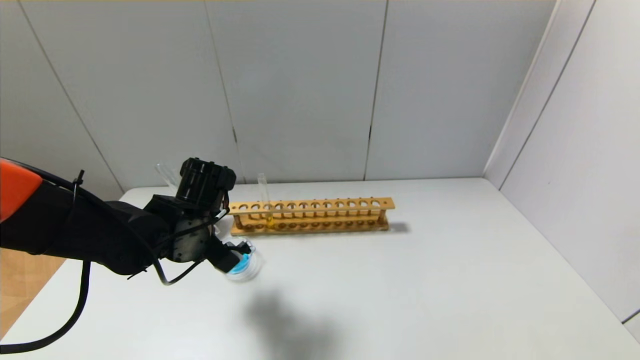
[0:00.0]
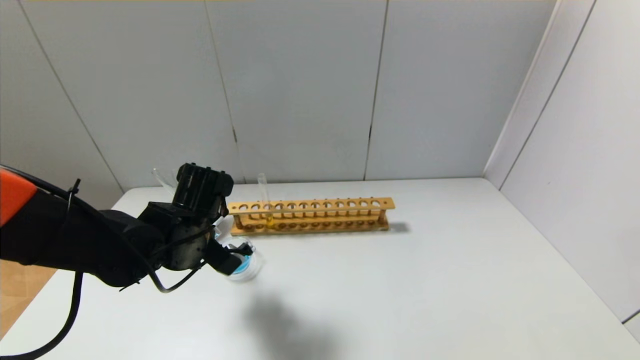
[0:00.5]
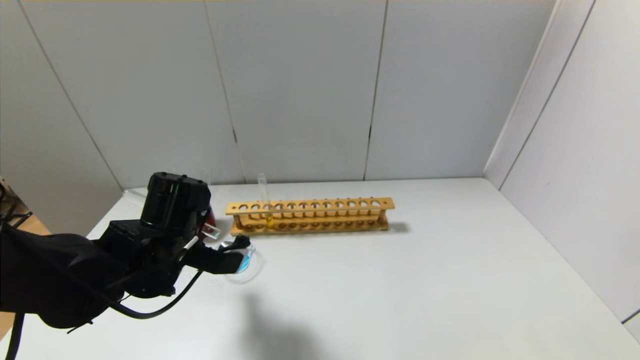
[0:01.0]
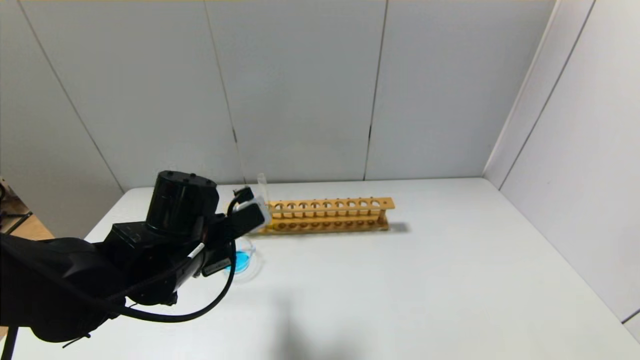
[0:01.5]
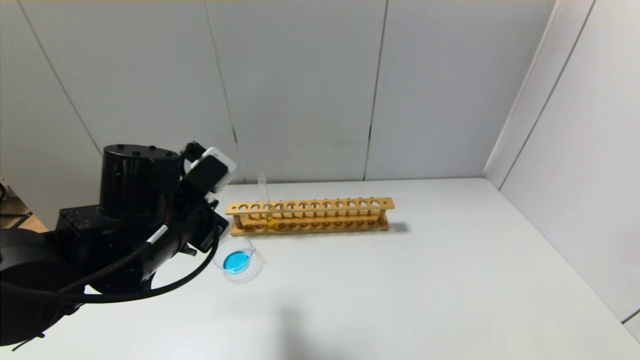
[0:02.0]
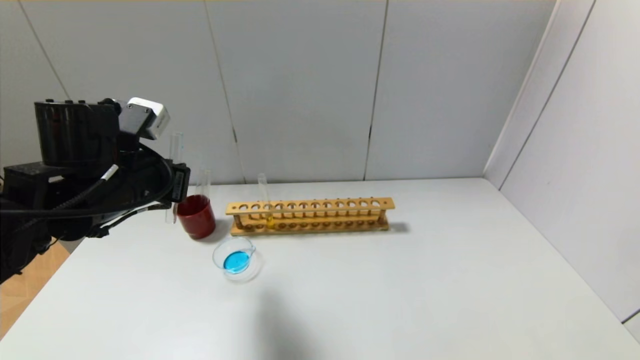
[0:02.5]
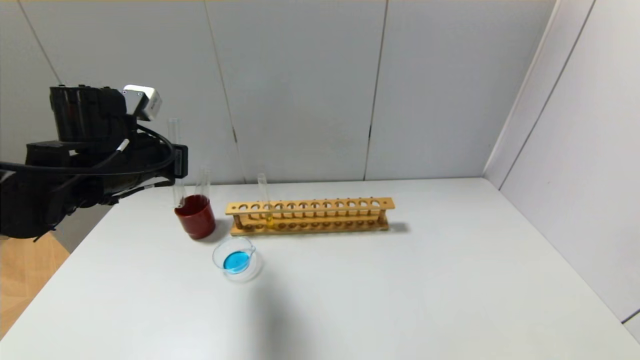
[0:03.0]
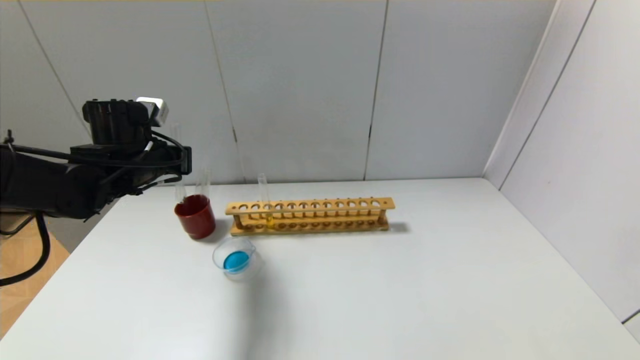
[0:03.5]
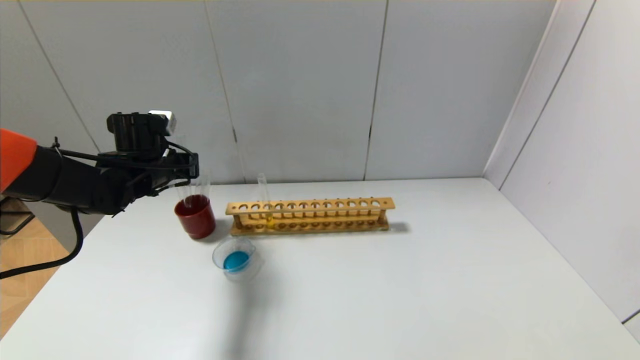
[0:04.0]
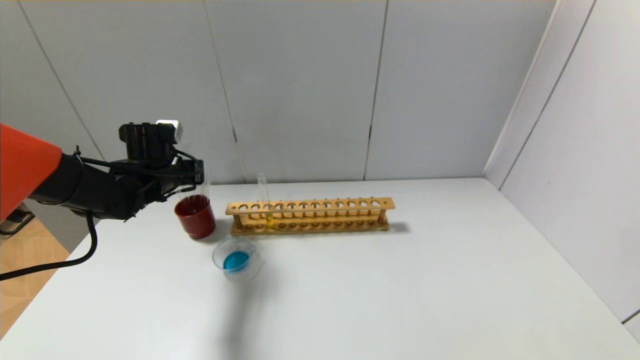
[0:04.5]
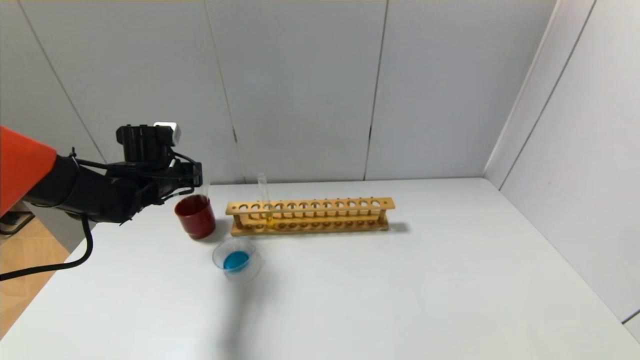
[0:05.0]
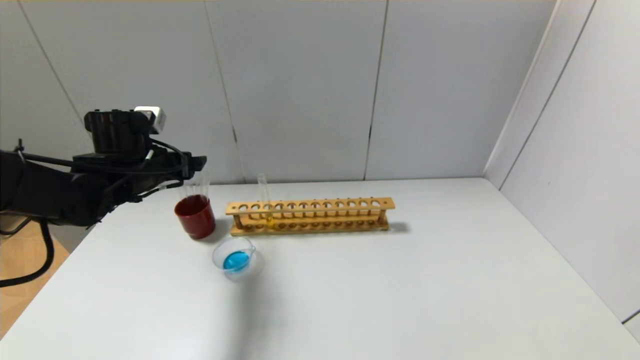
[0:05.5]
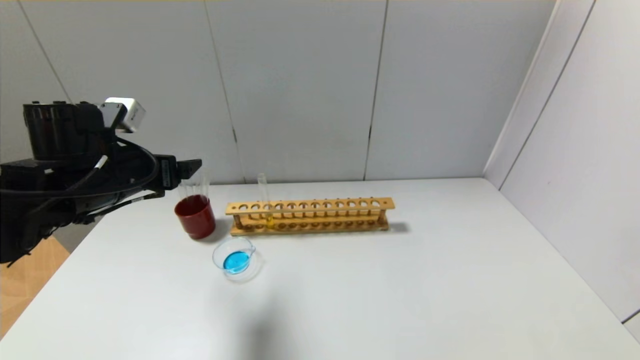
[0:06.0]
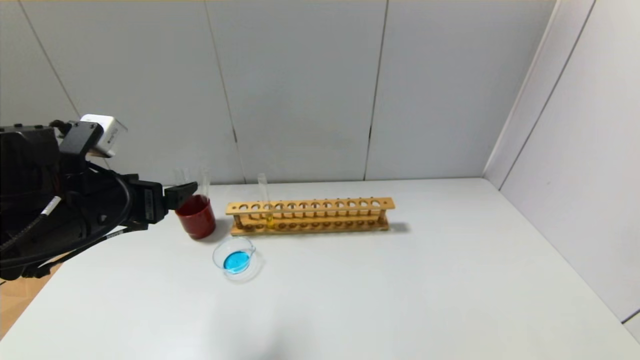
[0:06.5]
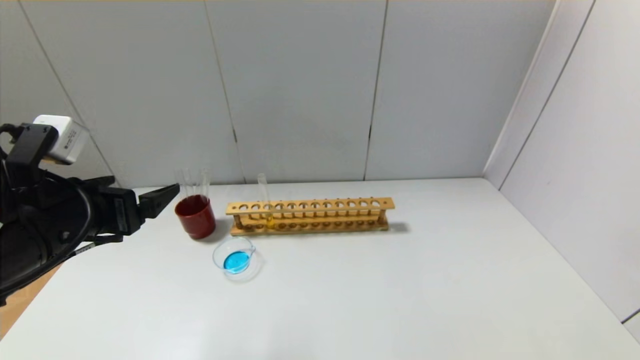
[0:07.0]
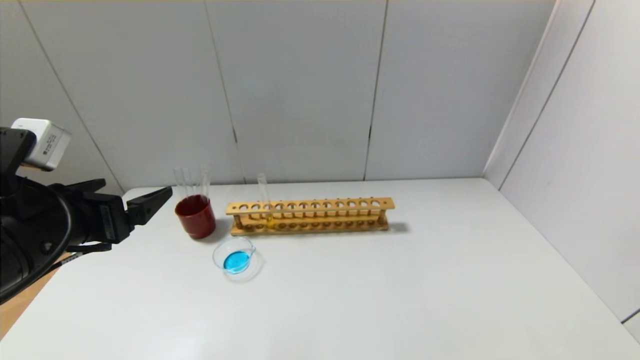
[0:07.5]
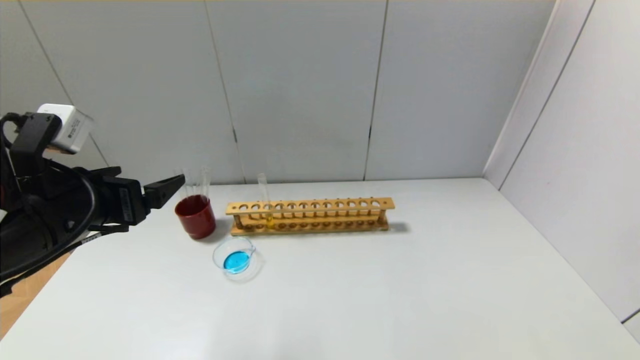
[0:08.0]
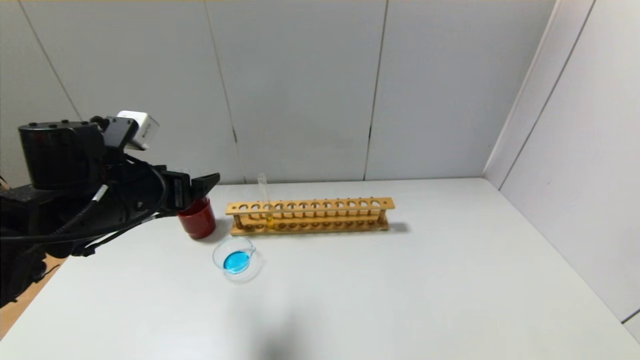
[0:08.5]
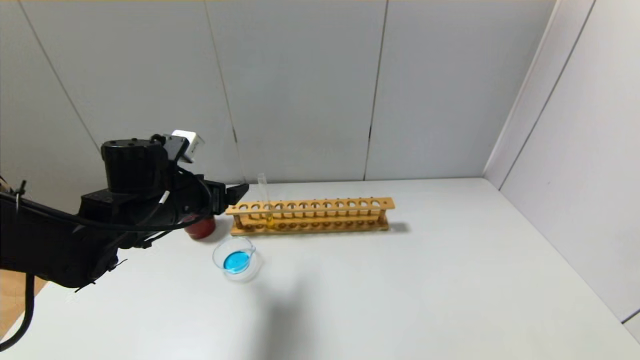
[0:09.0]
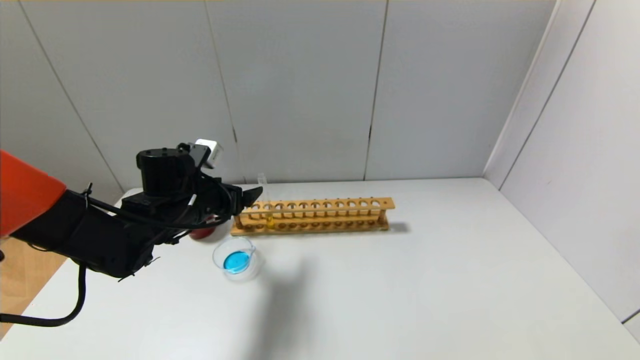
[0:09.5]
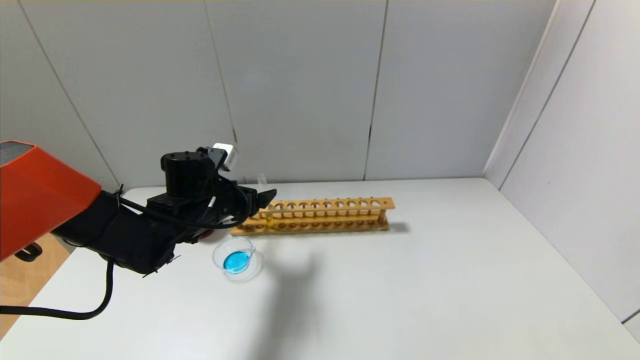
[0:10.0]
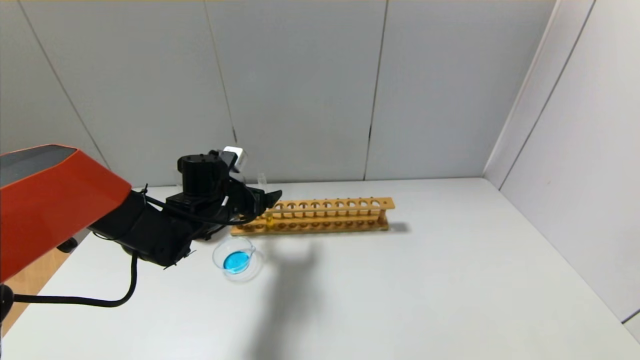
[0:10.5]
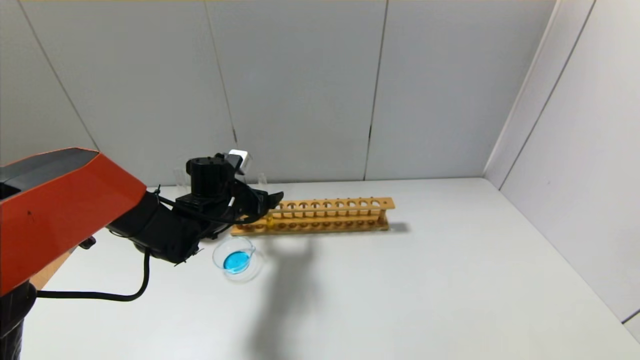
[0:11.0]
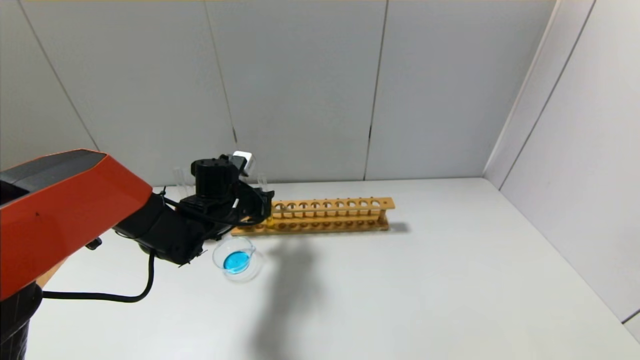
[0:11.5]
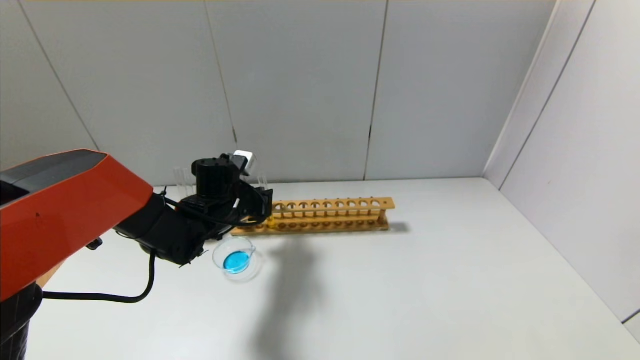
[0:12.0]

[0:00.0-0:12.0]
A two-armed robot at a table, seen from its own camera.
Step, 2.0 to 5.0 s: Place the test tube into the brown cup with the left gripper.
Step, 5.5 to 12.0 s: Grasp the yellow reagent with the left gripper.
0.0 to 2.0 s: The left gripper is displaced backward and upward by roughly 10 cm.
2.0 to 4.0 s: The left gripper travels forward and to the left by about 20 cm.
4.0 to 6.0 s: The left gripper shifts some 10 cm backward, and opens up.
6.0 to 8.0 s: The left gripper moves backward, roughly 10 cm.
8.0 to 10.0 s: The left gripper moves forward, downward and to the right, approximately 20 cm.
10.0 to 12.0 s: The left gripper closes up.

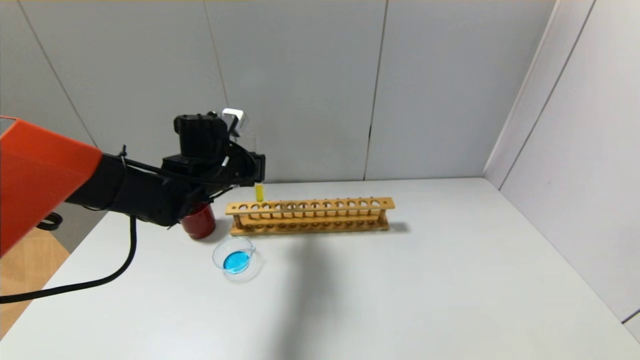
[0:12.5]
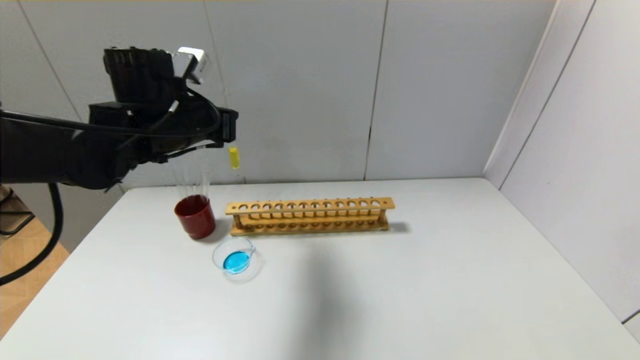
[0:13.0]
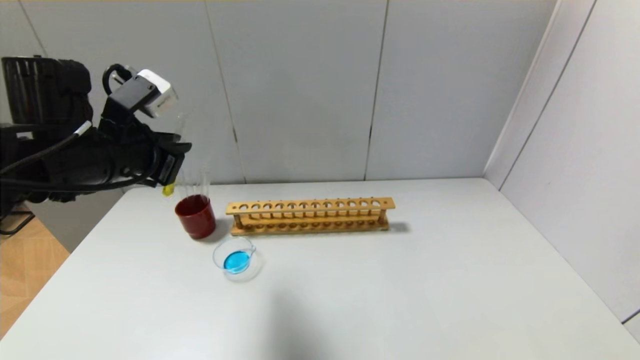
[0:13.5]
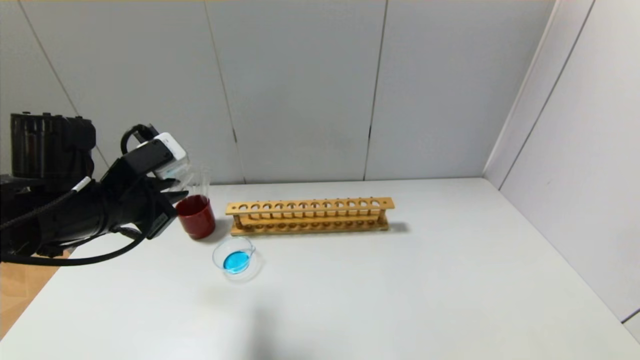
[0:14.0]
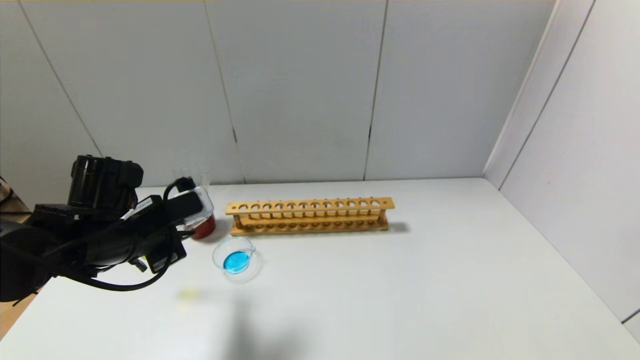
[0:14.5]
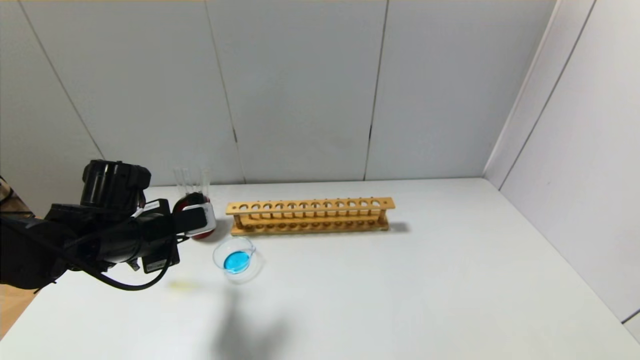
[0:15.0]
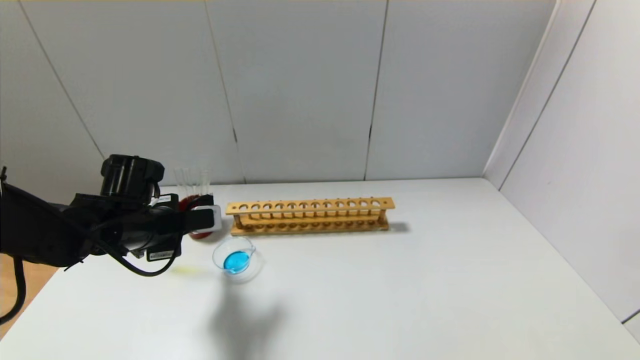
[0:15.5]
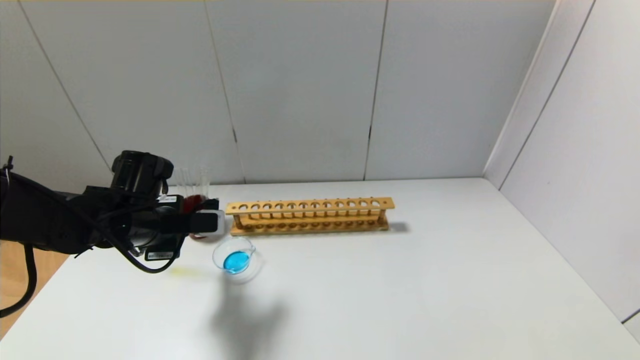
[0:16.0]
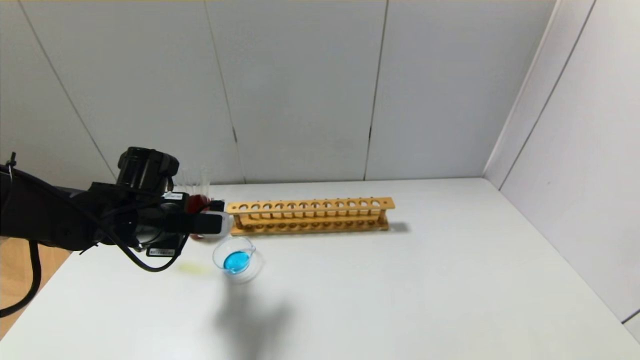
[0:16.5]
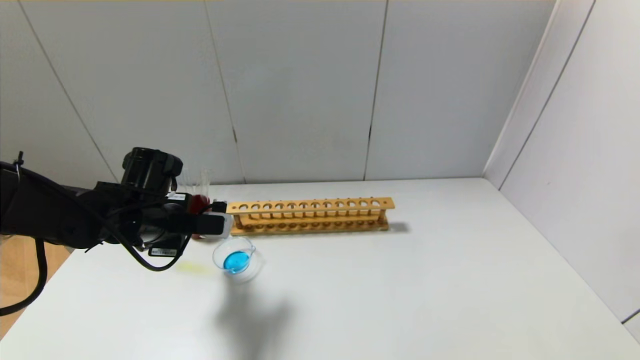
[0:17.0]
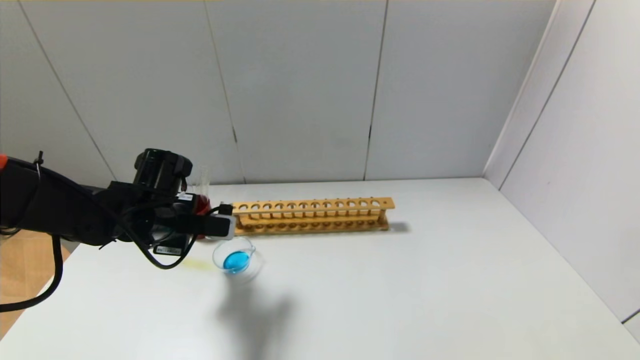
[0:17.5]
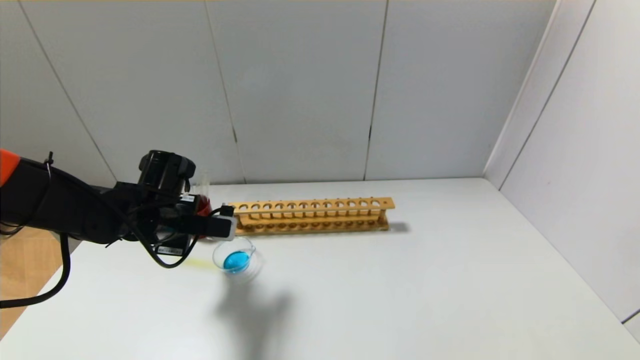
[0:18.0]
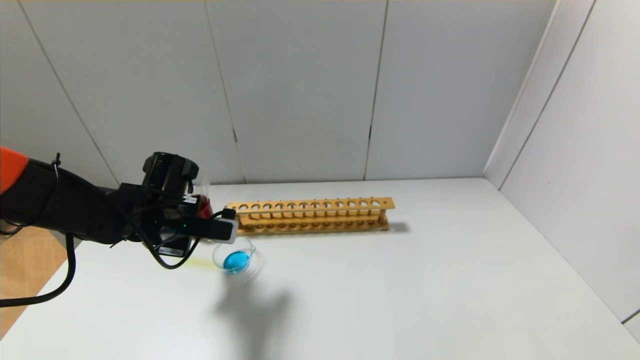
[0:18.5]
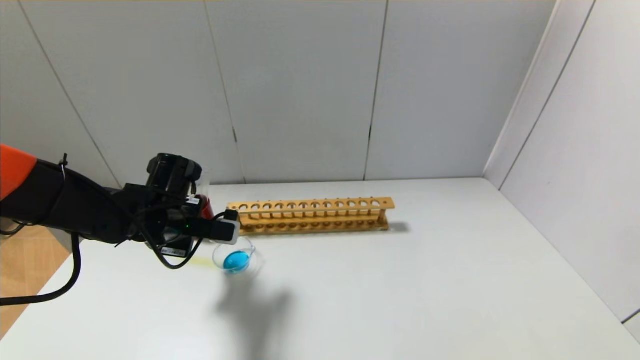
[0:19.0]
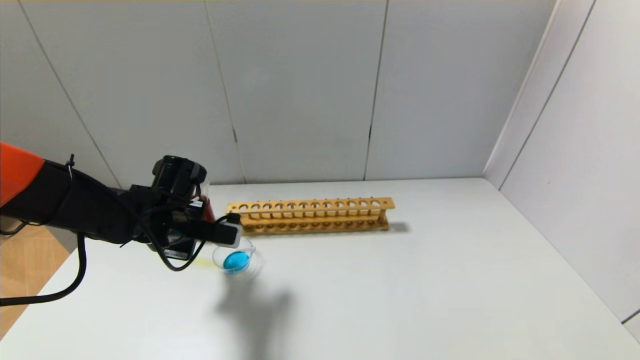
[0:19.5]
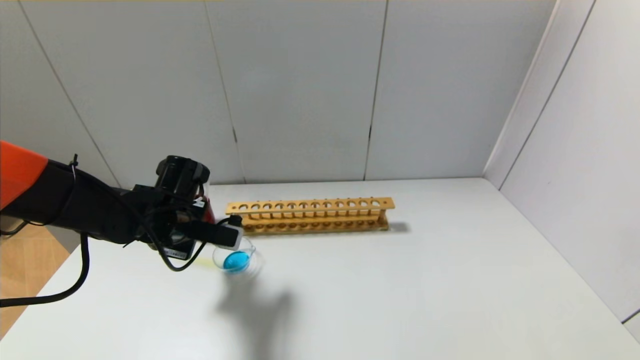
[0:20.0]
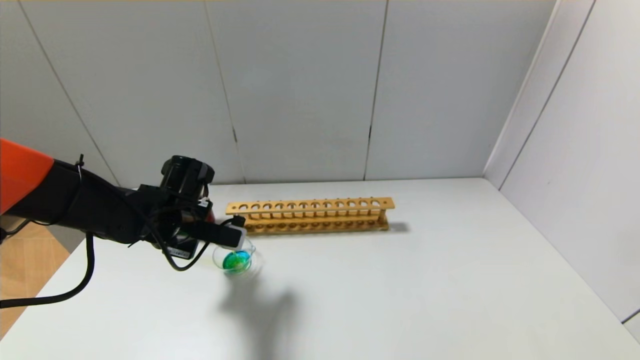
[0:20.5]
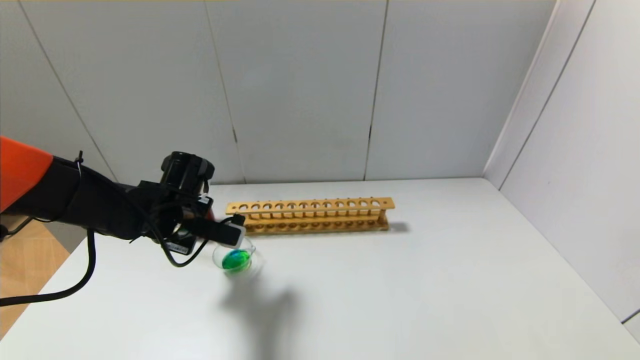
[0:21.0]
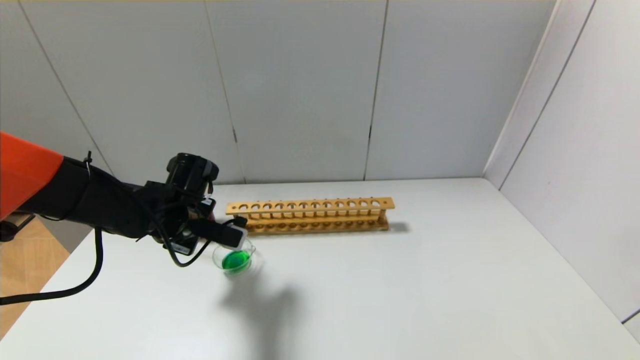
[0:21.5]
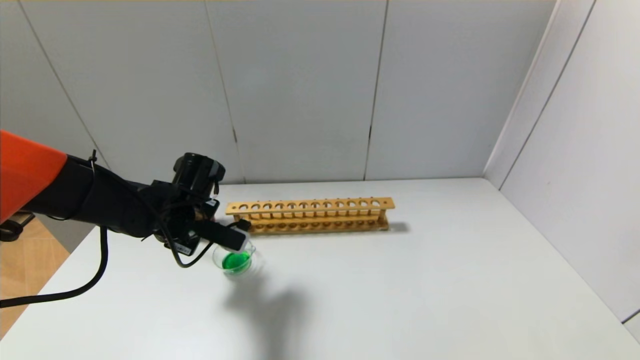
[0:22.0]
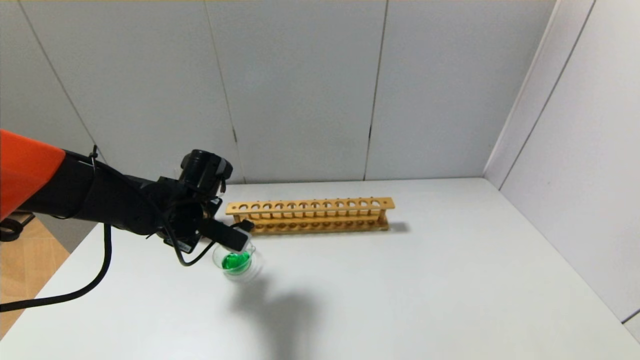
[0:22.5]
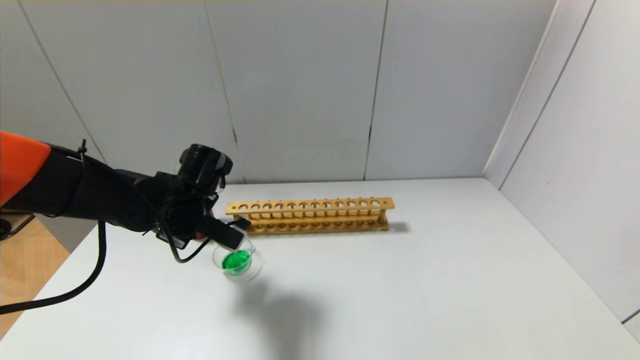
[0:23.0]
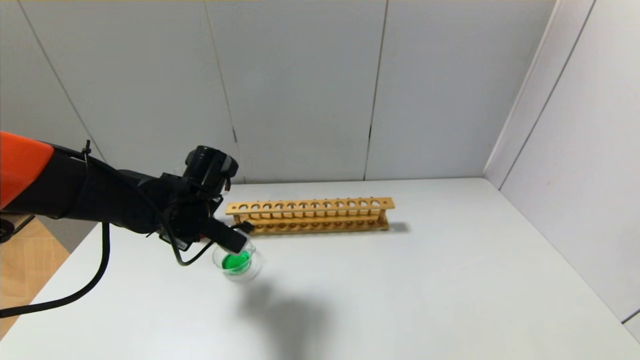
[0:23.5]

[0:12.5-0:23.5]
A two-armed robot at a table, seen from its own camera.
12.5 to 14.5 s: The left gripper goes some 15 cm backward and to the left.
14.5 to 16.0 s: The left gripper shifts by approximately 5 cm.
16.0 to 20.0 s: The grippers move only a little.
20.0 to 21.5 s: The grippers move only a little.
21.5 to 23.5 s: The grippers stay close to where they were, moving slightly.
